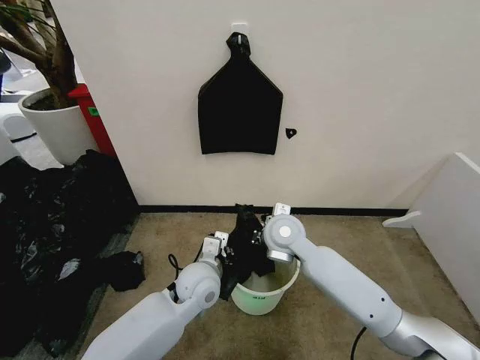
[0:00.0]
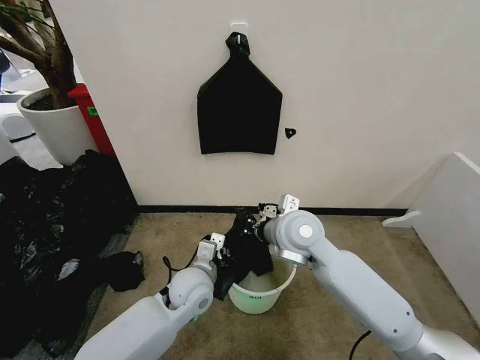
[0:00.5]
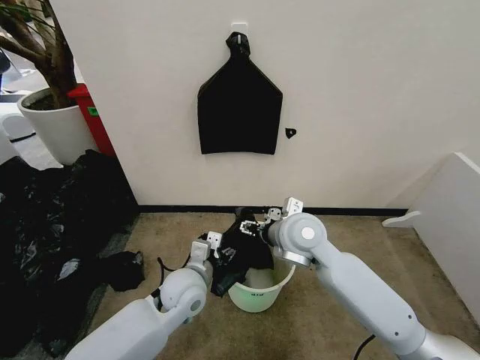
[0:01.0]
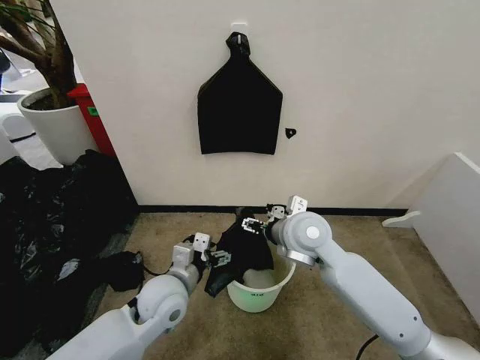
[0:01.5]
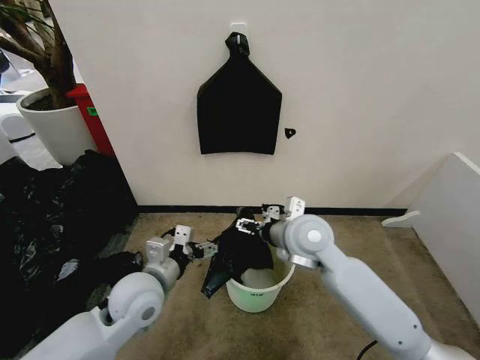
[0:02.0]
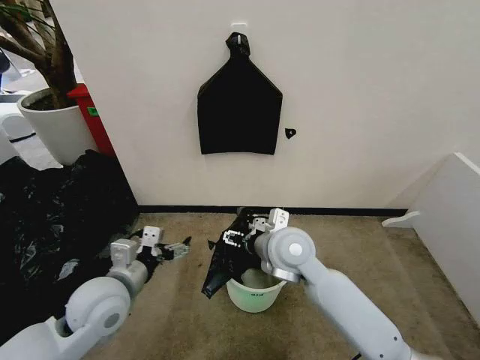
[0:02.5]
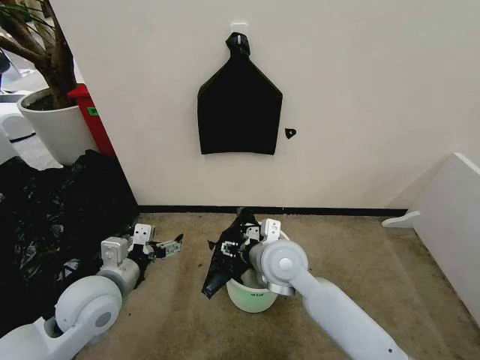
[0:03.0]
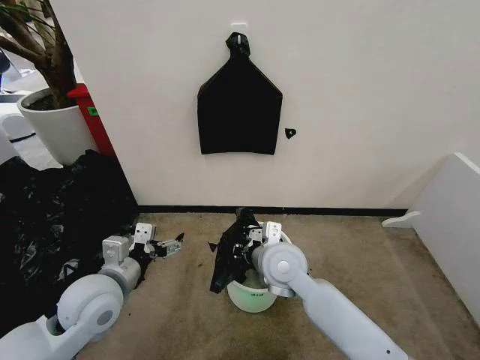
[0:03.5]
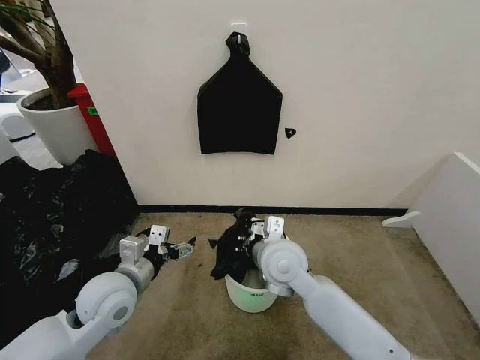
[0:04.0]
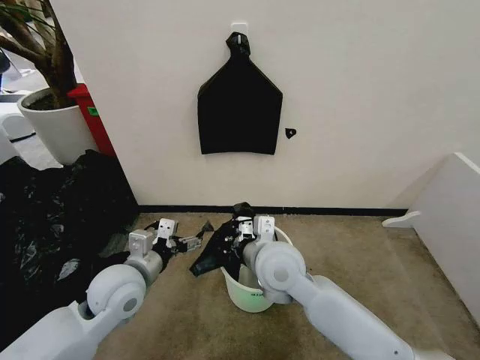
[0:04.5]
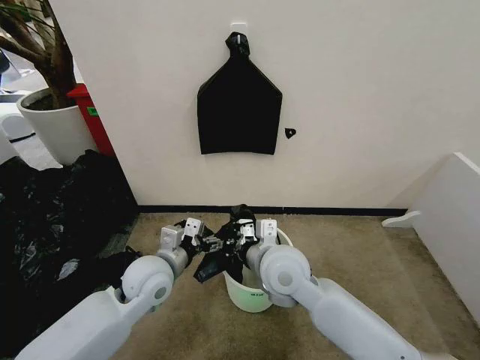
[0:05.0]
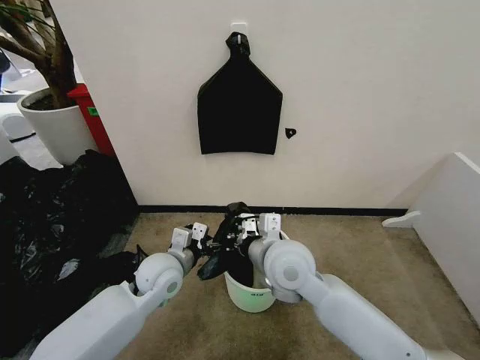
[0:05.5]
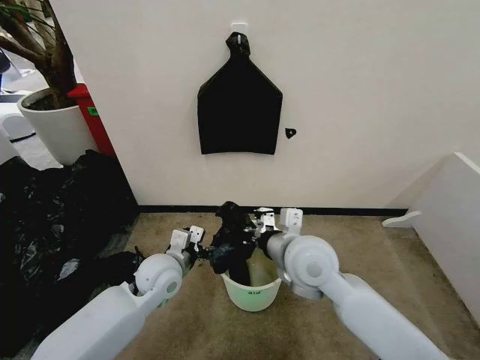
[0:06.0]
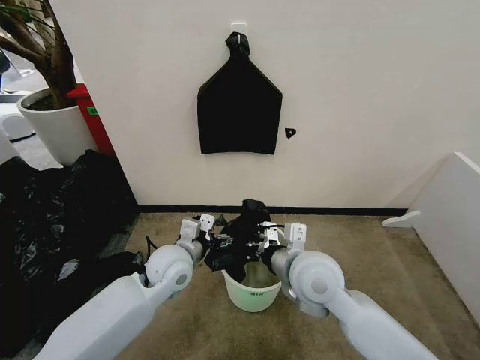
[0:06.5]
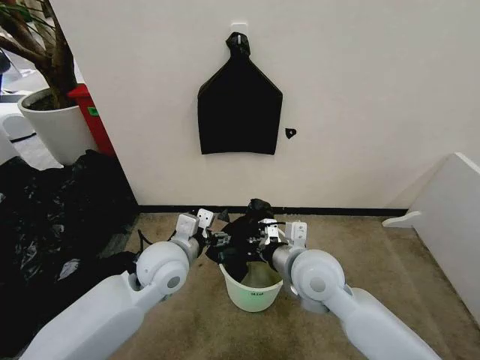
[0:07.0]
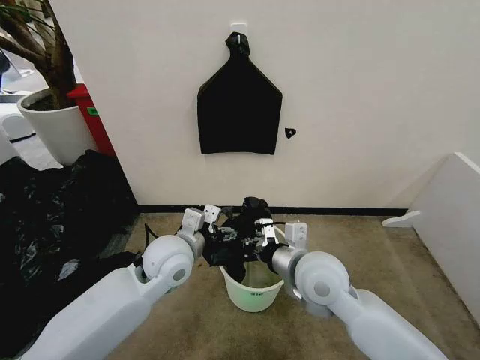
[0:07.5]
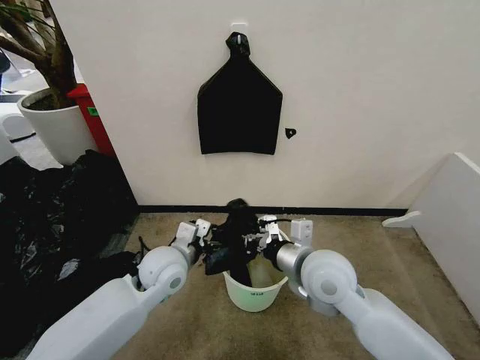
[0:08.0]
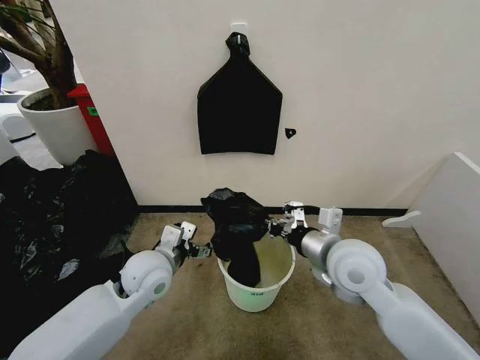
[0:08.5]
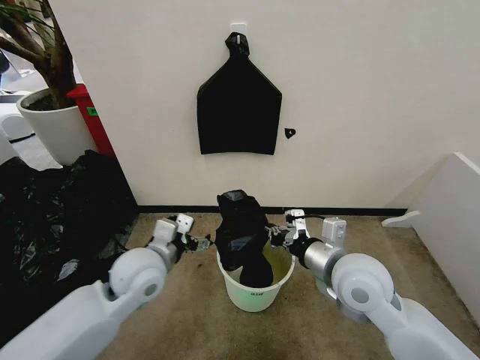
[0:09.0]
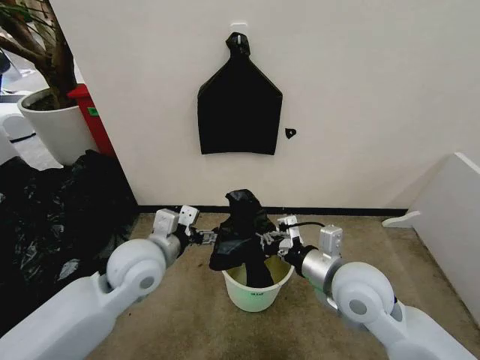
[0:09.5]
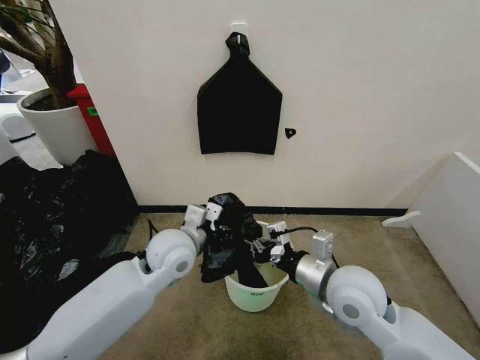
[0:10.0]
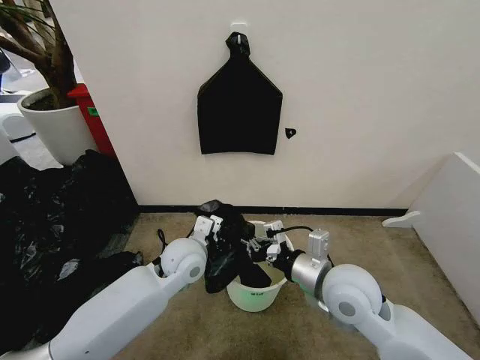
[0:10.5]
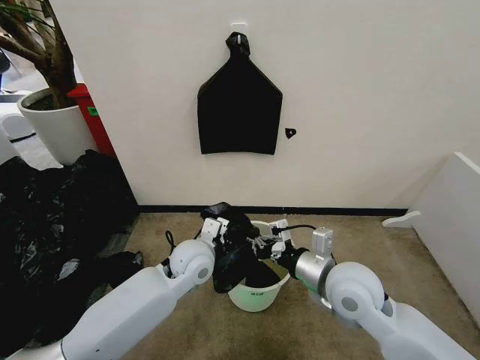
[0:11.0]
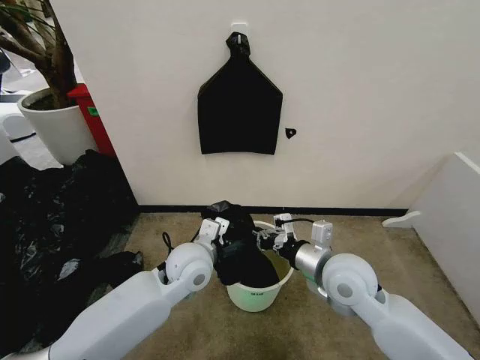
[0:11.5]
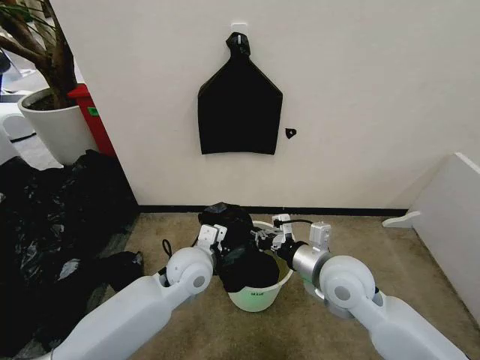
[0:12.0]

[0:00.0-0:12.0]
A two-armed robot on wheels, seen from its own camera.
Task of the whole recording: Place the garbage bag over the trash bin.
0:00.0 to 0:02.0: The right gripper moves roughly 5 cm, and opens up. The left gripper goes some 10 cm to the left and upward, and opens.
0:02.0 to 0:04.0: The grippers both shift to the left by some 5 cm. The right gripper closes its fingers.
0:04.0 to 0:06.0: The left gripper goes some 10 cm to the right and forward. Meanwhile the right gripper shifts by about 5 cm.
0:08.0 to 0:10.0: The right gripper changes place by some 5 cm.
0:10.0 to 0:12.0: The left gripper ends up roughly 5 cm from where it was.

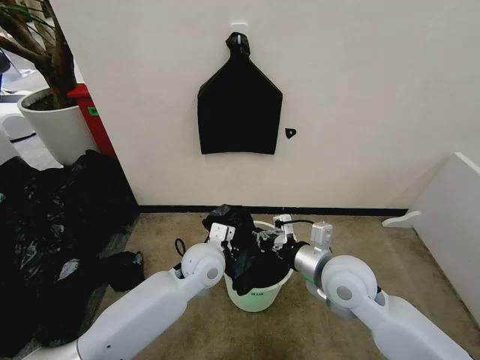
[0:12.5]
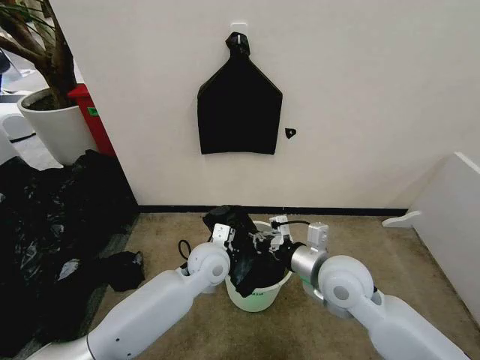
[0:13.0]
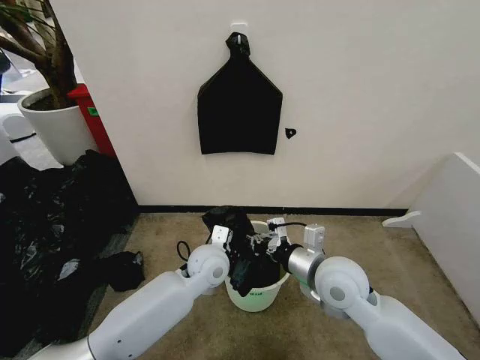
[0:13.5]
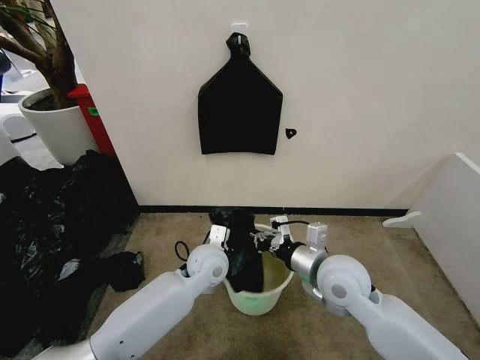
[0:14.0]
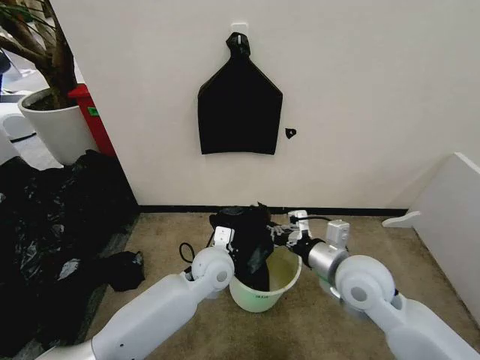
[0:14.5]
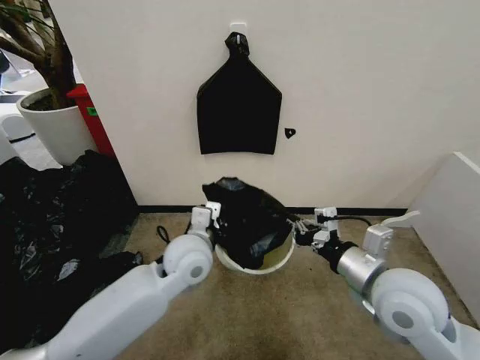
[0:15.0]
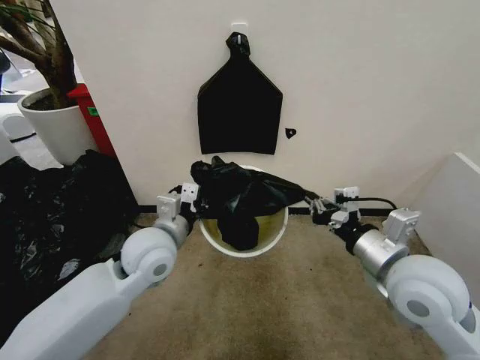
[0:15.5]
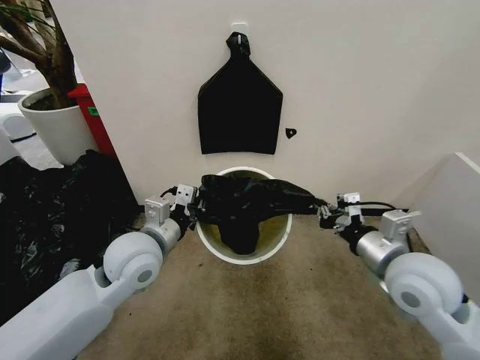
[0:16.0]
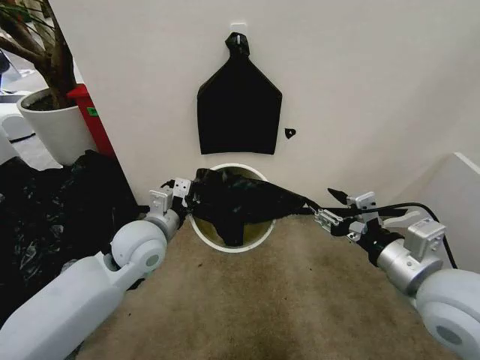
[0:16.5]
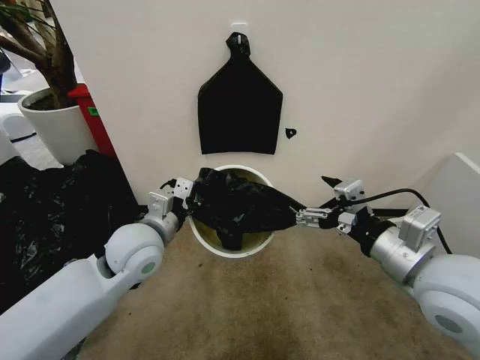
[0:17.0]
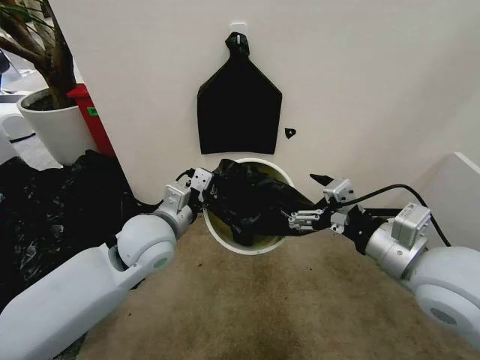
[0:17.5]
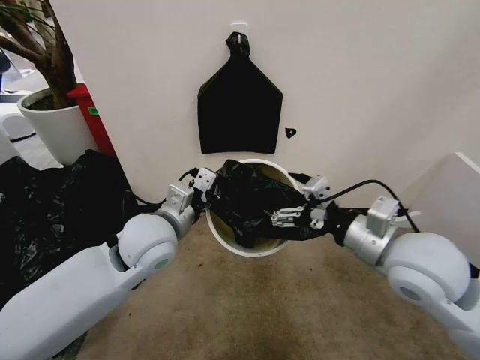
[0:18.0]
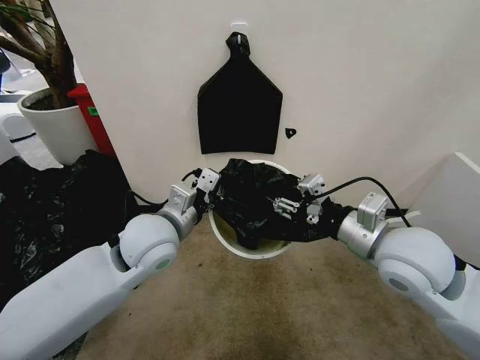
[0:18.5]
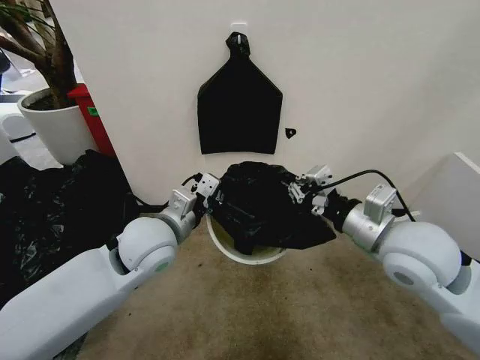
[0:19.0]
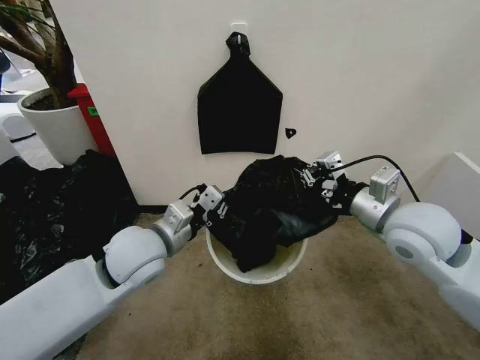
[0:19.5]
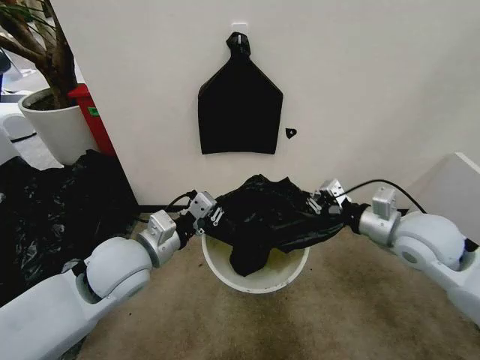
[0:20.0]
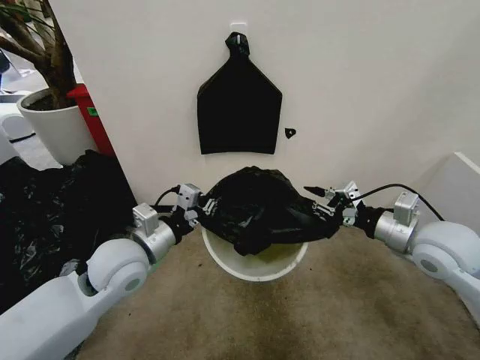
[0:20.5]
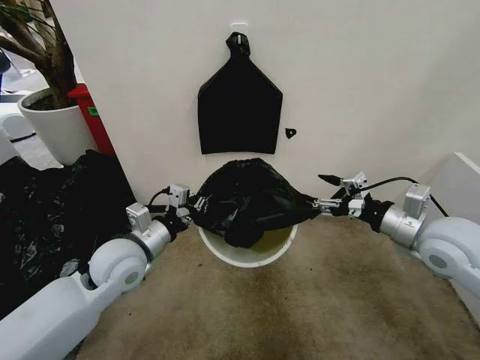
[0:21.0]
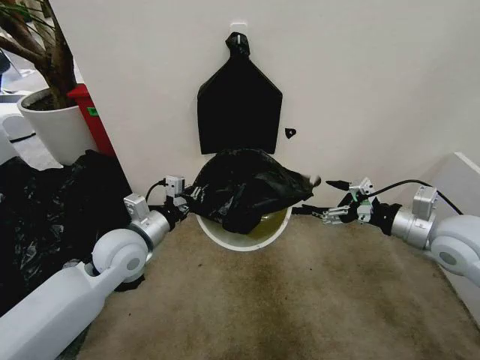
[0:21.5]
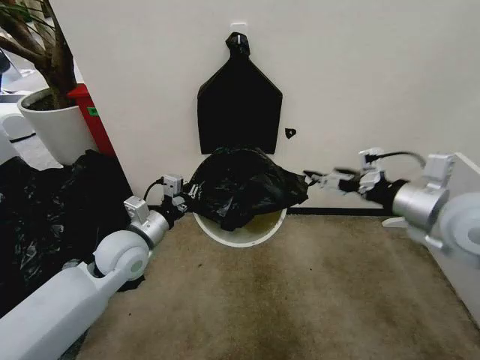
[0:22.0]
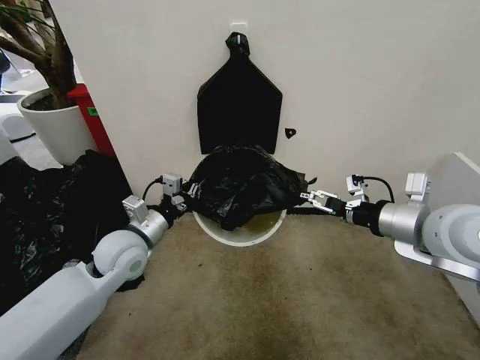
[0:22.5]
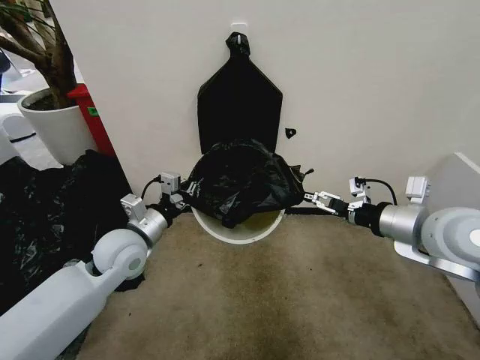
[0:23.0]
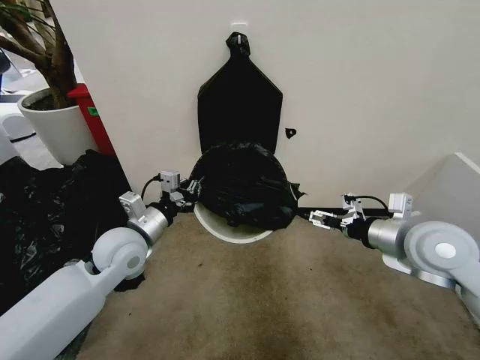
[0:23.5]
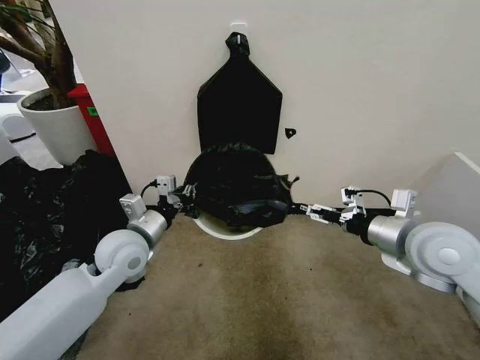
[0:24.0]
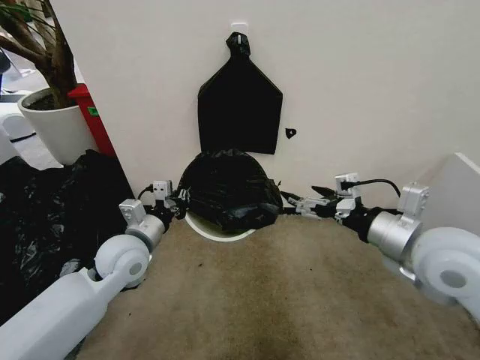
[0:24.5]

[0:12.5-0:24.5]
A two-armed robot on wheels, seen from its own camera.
Task of the whole recording: Place the garbage bag over the trash bin.
0:12.5 to 0:14.5: The left gripper closes its fingers.
0:14.5 to 0:16.5: The right gripper travels upward, backward and to the right by approximately 15 cm, and opens up. Meanwhile the left gripper travels to the left and upward by some 15 cm.
0:16.5 to 0:18.5: The left gripper shifts by approximately 5 cm, while the right gripper shifts about 5 cm forward, and opens and closes again.
0:18.5 to 0:20.5: The left gripper travels to the left by about 5 cm, while the right gripper heads to the right, covering about 10 cm.
0:20.5 to 0:22.5: The right gripper heads upward, covering roughly 5 cm, and opens up. Meanwhile the left gripper ends up some 5 cm from where it was.

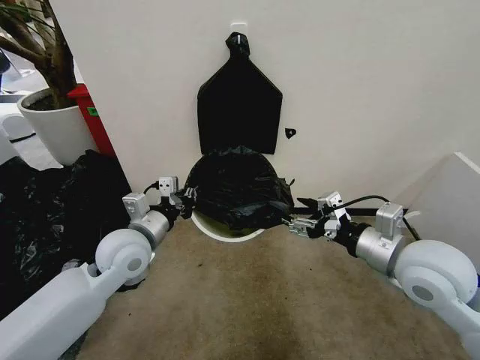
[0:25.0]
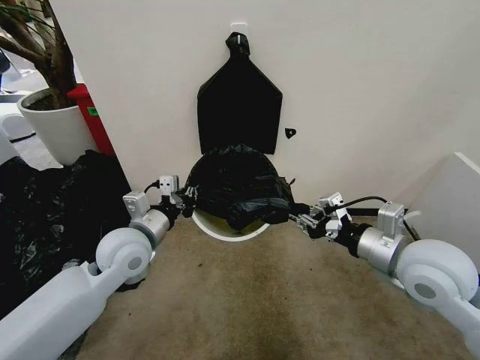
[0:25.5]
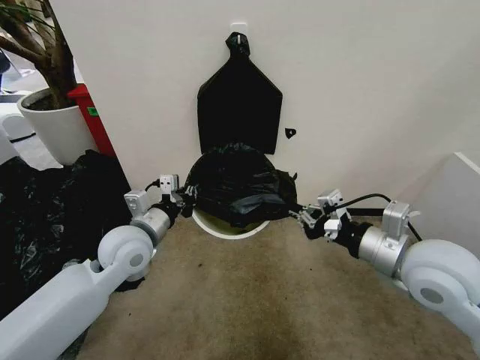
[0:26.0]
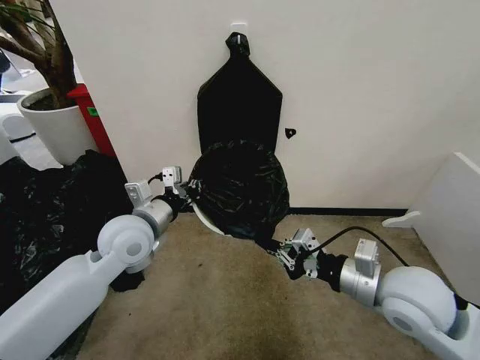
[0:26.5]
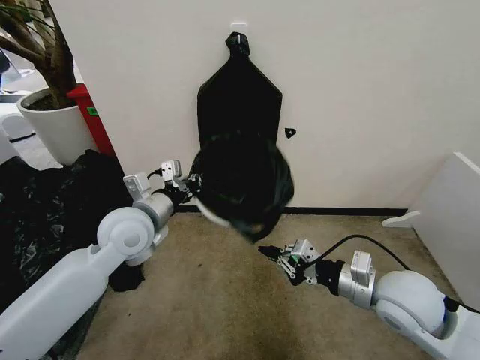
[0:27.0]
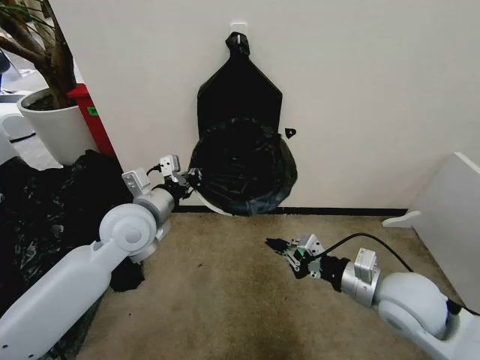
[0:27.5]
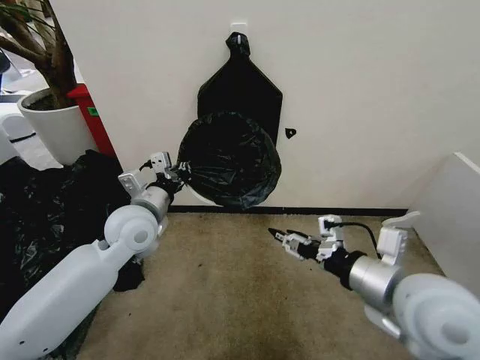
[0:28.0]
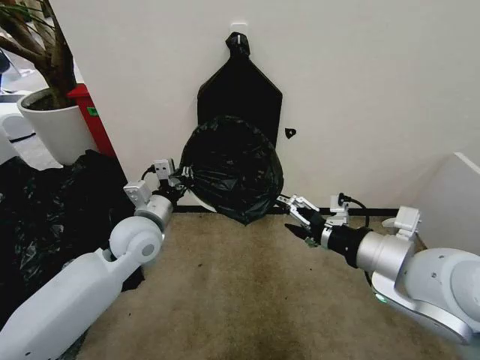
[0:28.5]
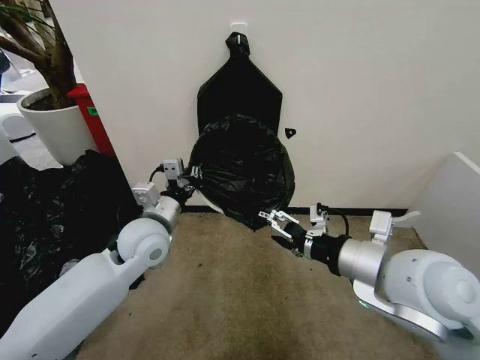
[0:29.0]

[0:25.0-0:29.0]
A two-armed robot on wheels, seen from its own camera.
Task of the whole recording: Place the garbage bag over the trash bin.
0:25.0 to 0:27.0: The right gripper goes approximately 5 cm downward, and closes.
0:27.0 to 0:29.0: The right gripper moves upward, about 10 cm, and opens up.
